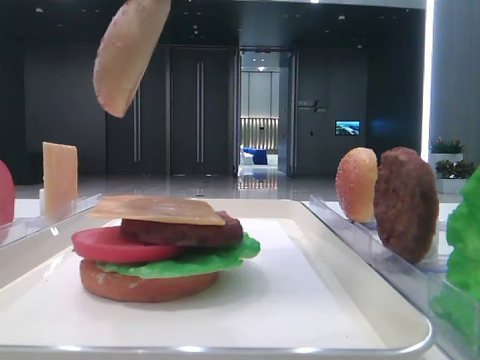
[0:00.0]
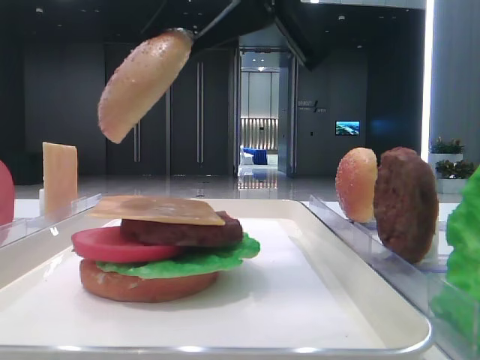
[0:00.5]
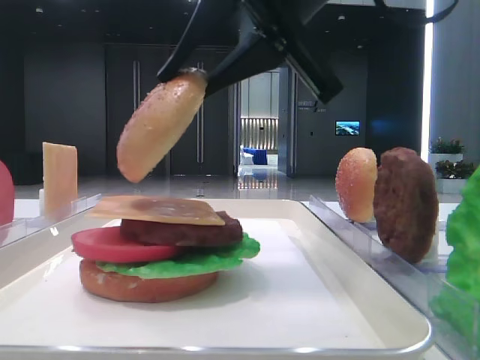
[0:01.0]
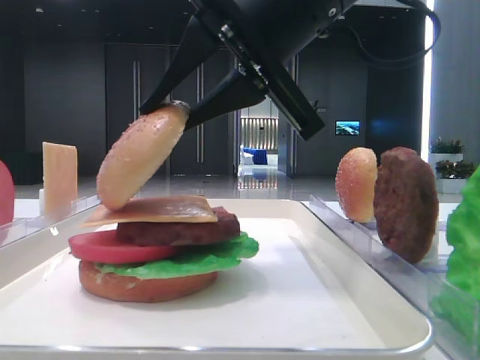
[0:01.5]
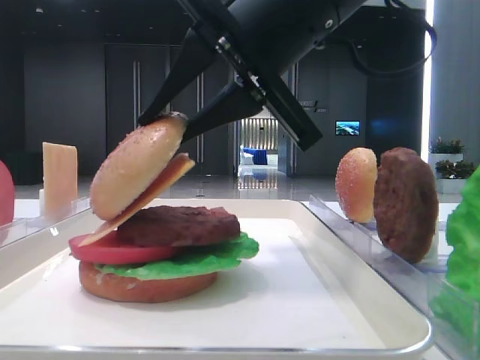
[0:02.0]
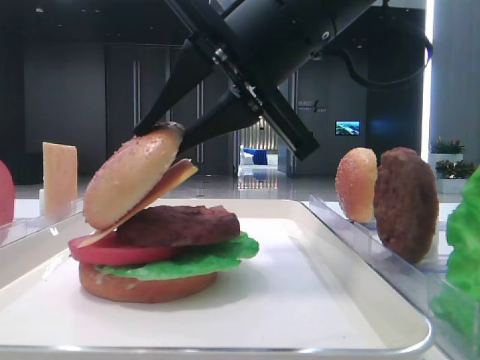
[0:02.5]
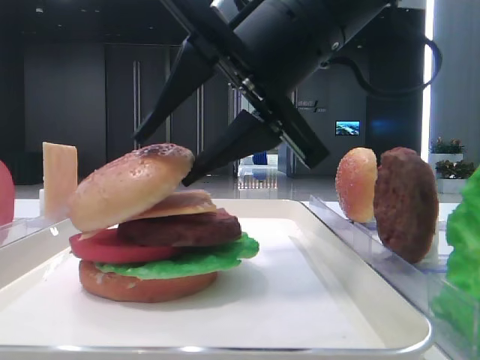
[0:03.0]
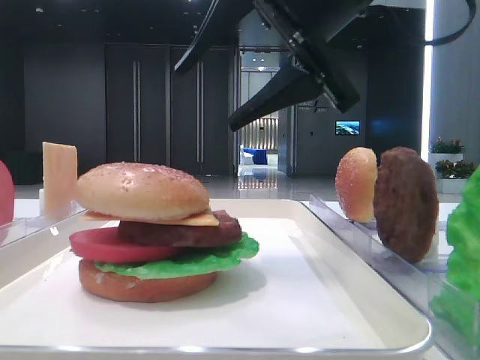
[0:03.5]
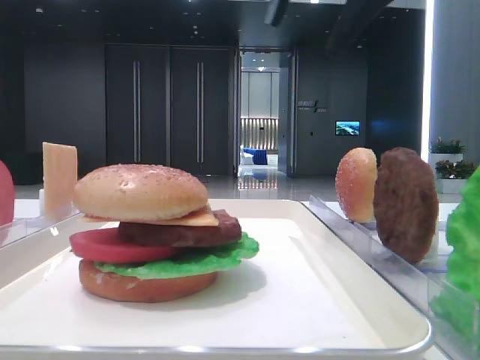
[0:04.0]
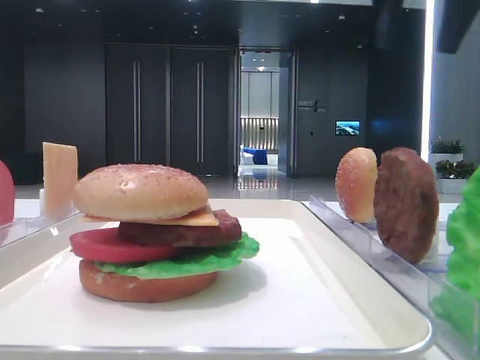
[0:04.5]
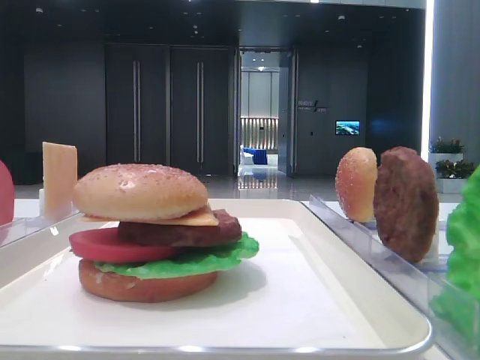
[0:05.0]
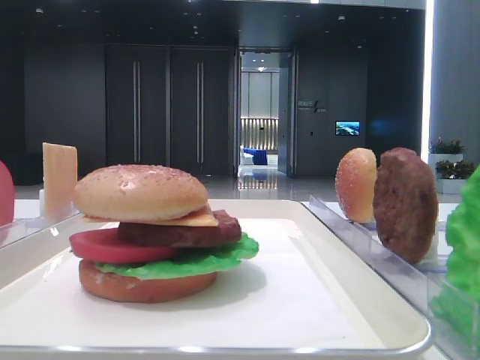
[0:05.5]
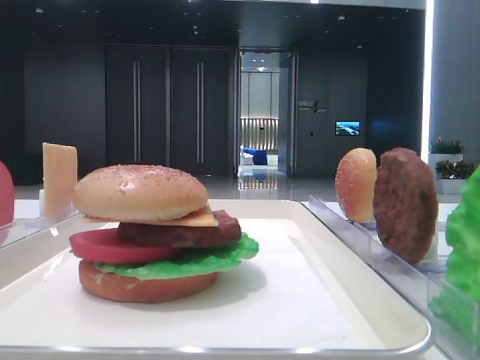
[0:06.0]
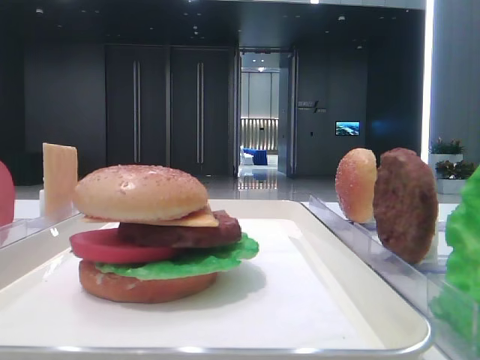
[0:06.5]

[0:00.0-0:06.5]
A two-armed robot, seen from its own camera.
Step, 0:00.0 to 0:03.0: Place the top bread slice on the cheese with the right hand.
0:00.0 to 0:02.0: The right gripper travels downward by about 10 cm.
0:02.0 to 0:04.5: The right gripper goes approximately 20 cm to the right and upward, and opens.
0:04.5 to 0:06.5: The right gripper heads backward, covering some 35 cm.

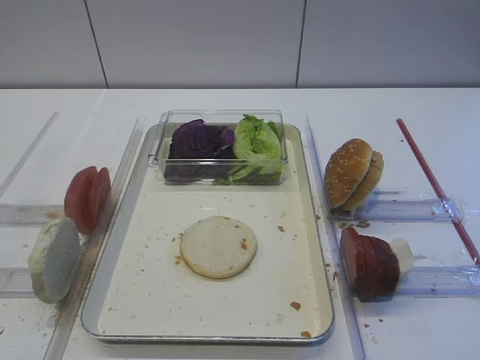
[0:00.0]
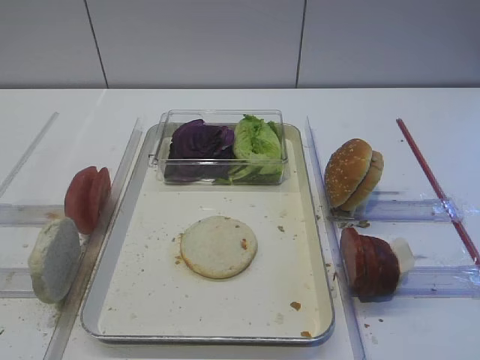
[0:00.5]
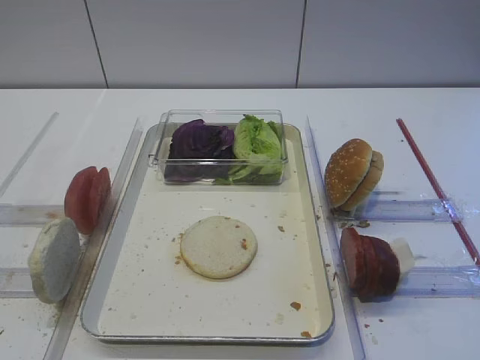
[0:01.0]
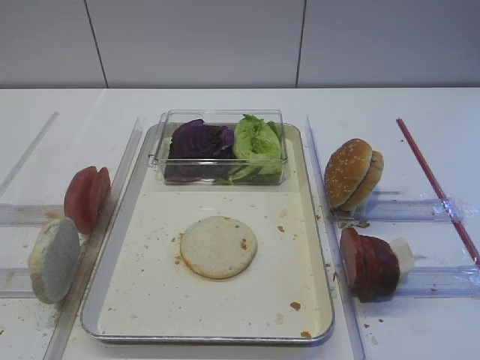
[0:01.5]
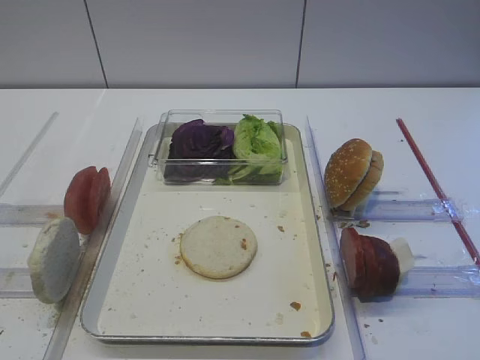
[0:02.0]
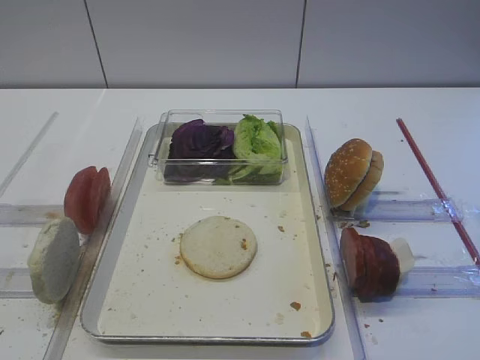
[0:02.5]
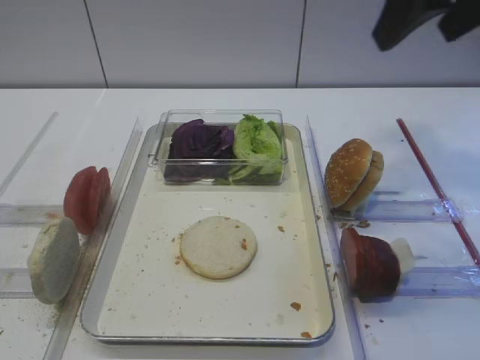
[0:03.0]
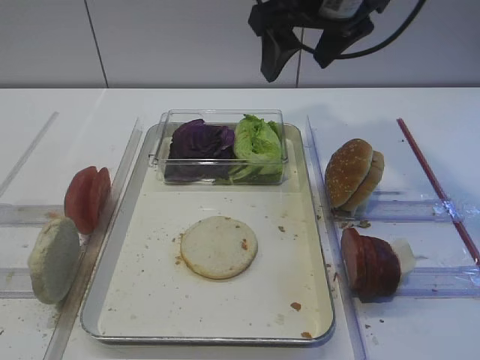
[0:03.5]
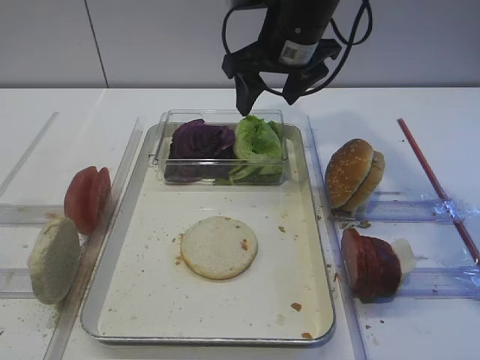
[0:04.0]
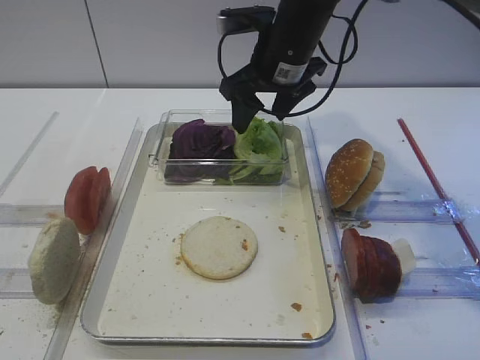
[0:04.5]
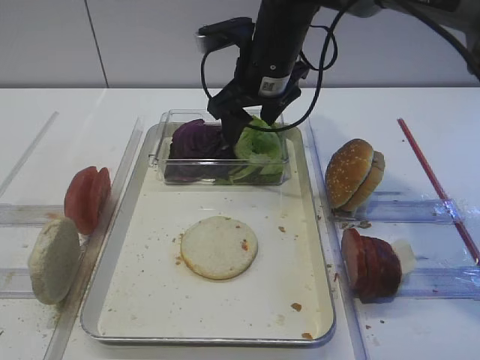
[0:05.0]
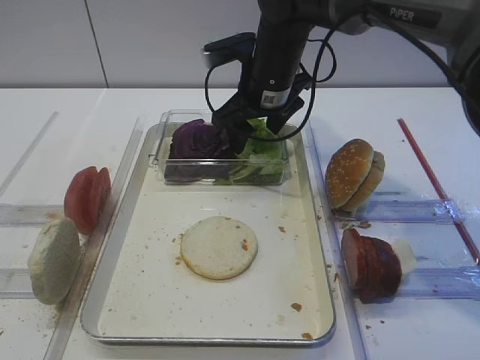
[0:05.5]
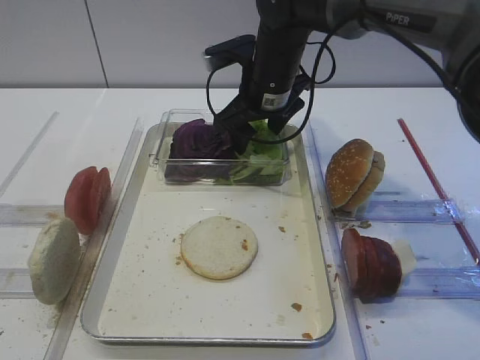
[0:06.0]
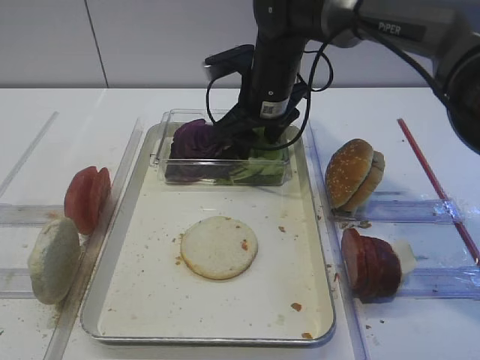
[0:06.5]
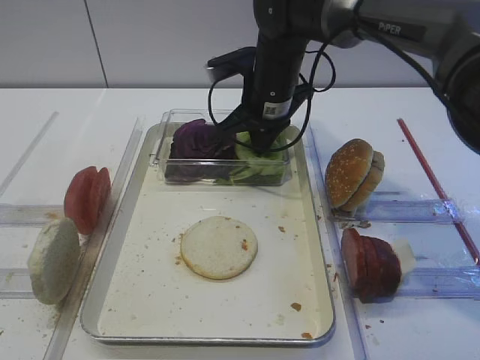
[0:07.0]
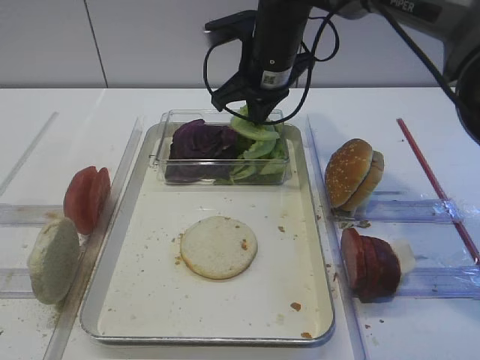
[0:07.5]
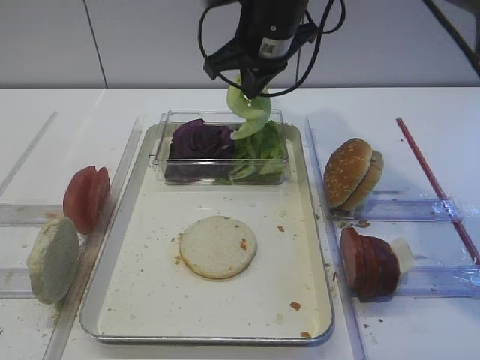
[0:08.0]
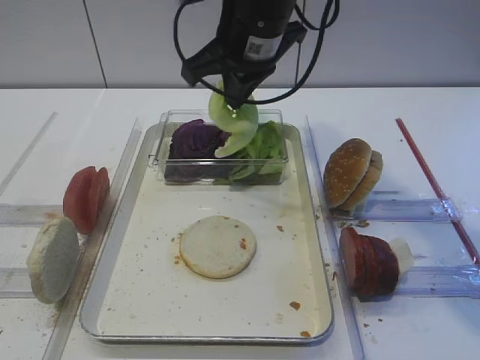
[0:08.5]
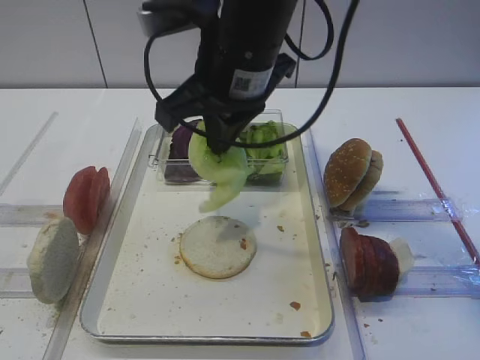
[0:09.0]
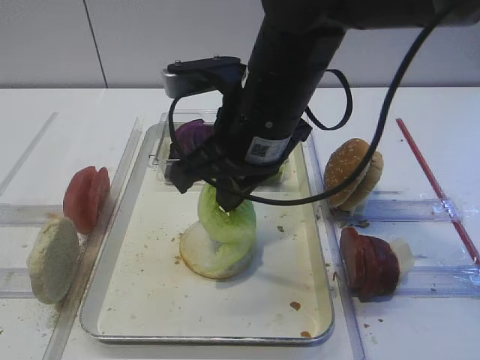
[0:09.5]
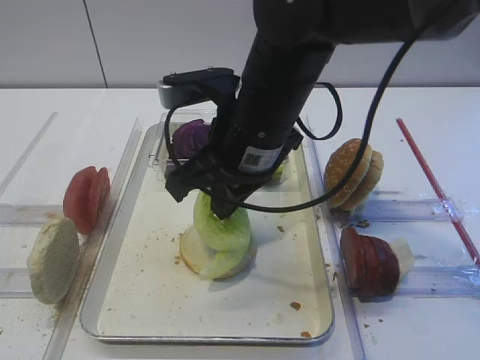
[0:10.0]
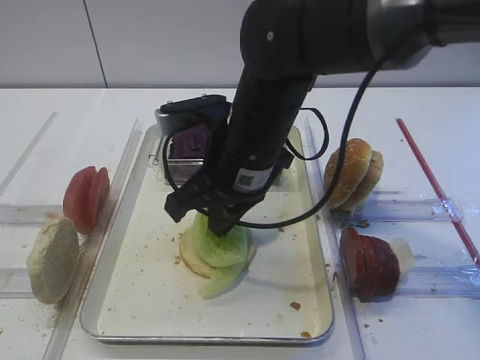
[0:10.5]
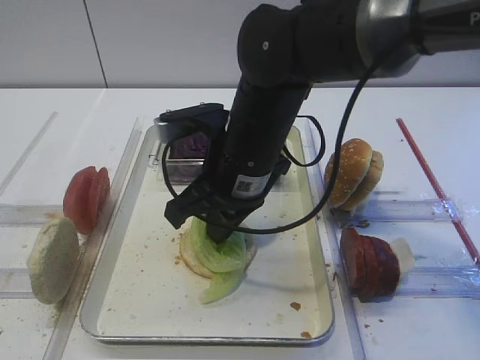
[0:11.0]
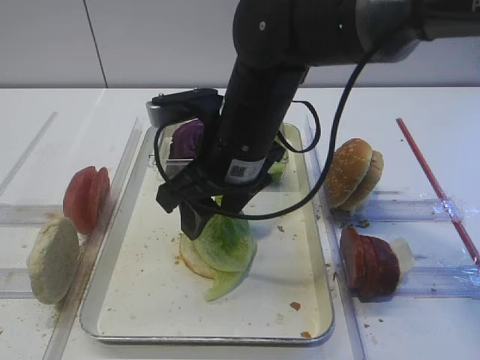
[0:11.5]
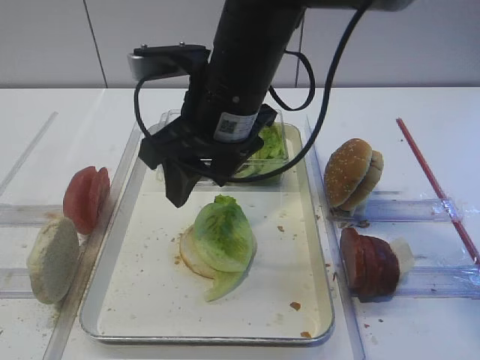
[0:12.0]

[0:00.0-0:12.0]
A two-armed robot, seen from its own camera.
Step, 0:00.0 to 0:08.0: Pick up the lettuce leaf with the right gripper.
0:02.0 to 0:04.0: The right gripper shifts approximately 40 cm forward and to the left.
0:04.0 to 0:06.0: The right gripper goes approximately 5 cm downward.
0:06.0 to 0:08.0: The right gripper shifts about 5 cm upward, and closes its fingers.
0:08.0 to 0:10.0: The right gripper goes some 15 cm backward.
0:10.0 to 0:12.0: The right gripper opens.

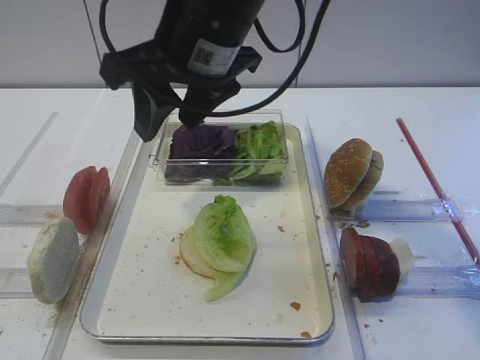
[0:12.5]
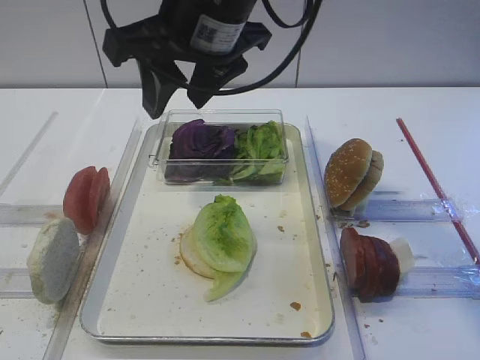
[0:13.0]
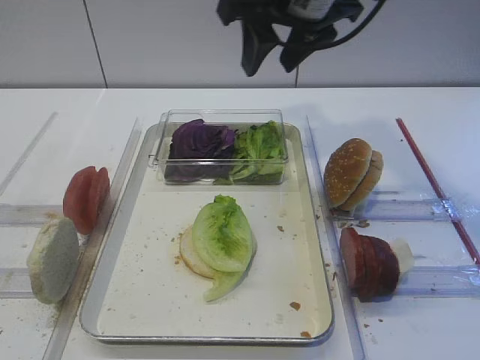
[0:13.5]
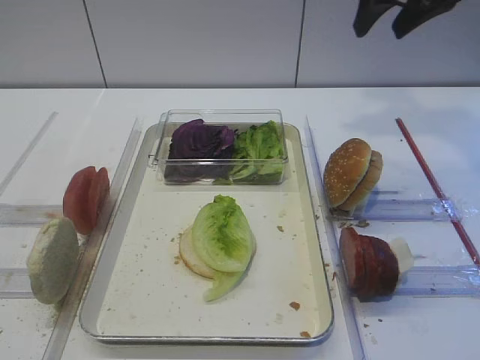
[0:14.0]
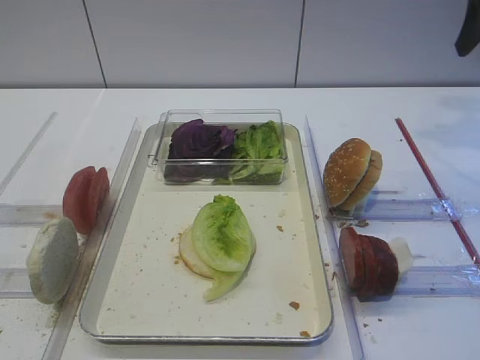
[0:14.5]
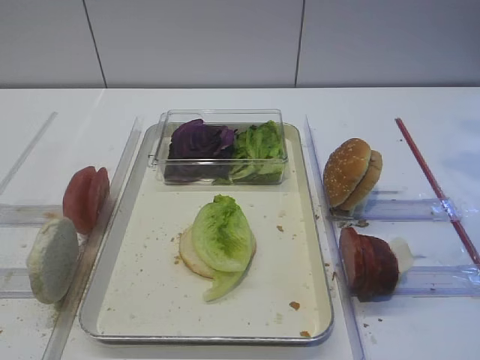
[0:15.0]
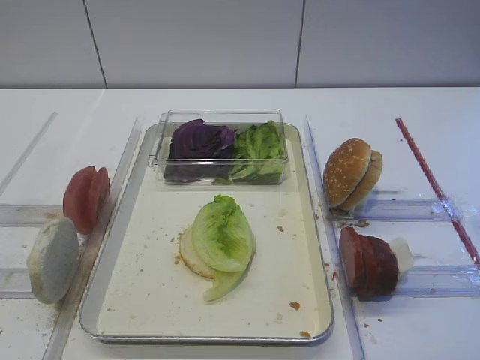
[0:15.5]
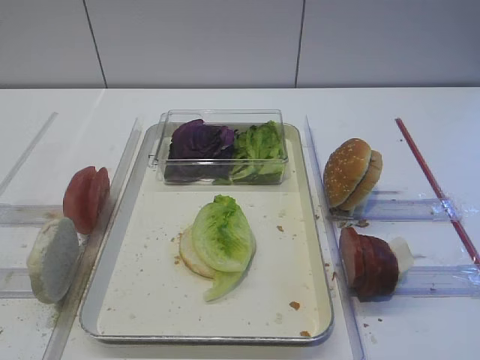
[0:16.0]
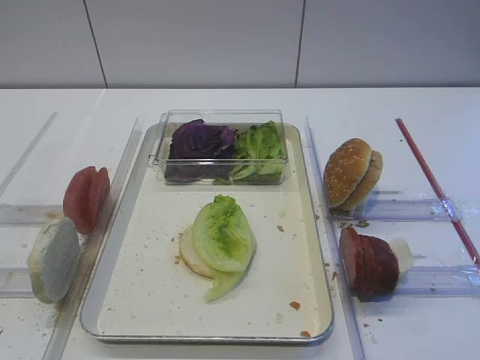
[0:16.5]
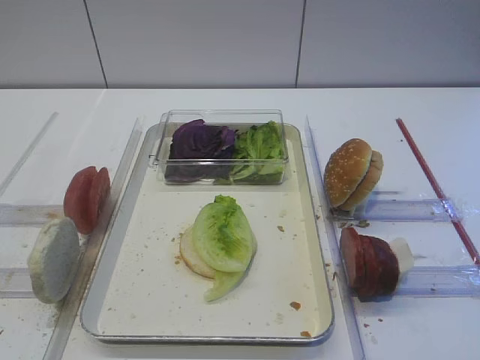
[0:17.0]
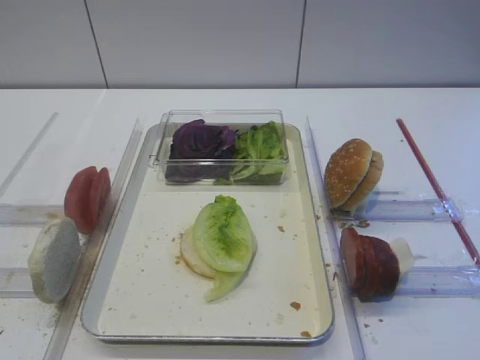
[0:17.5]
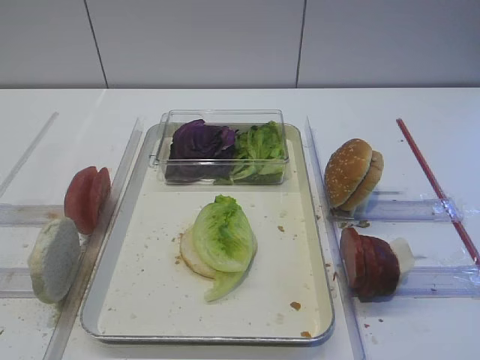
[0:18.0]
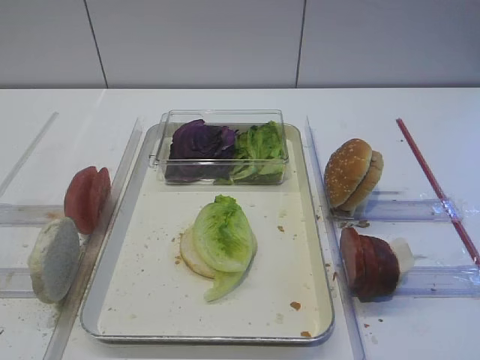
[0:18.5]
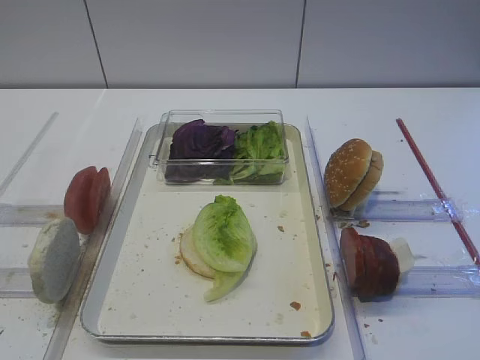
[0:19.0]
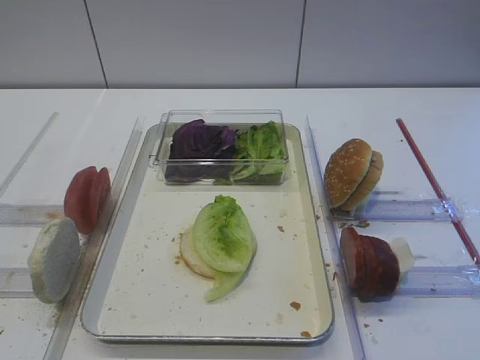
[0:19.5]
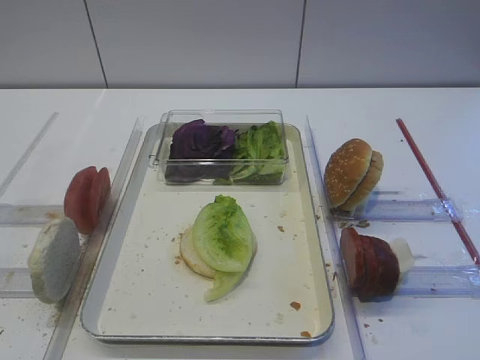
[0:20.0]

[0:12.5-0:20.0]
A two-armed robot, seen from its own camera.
0:12.5 to 0:14.5: The right gripper heads to the right, covering approximately 30 cm.
0:18.0 to 0:20.0: The two grippers keep their place.
